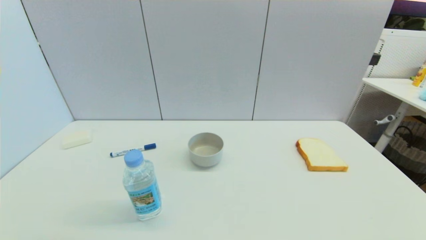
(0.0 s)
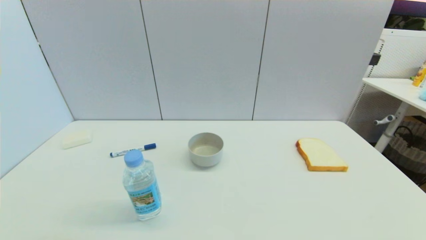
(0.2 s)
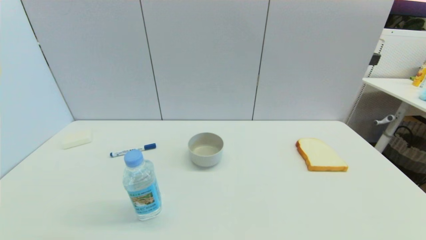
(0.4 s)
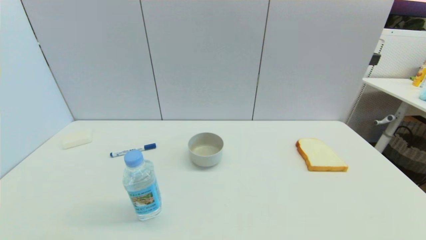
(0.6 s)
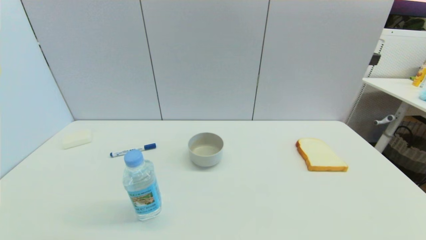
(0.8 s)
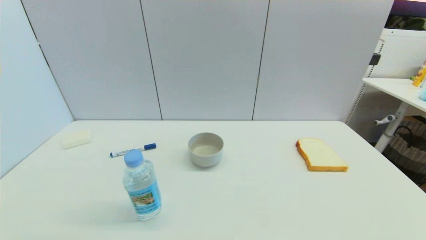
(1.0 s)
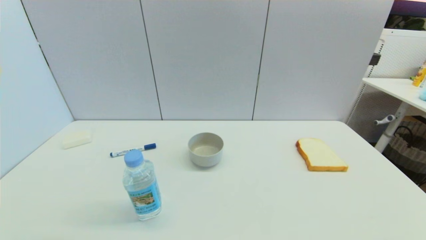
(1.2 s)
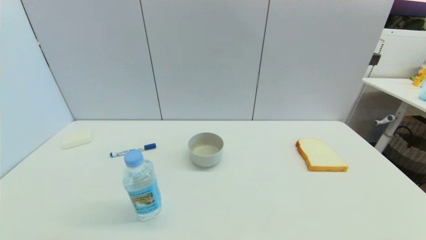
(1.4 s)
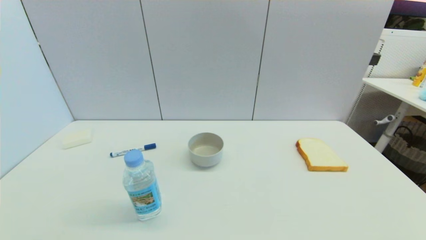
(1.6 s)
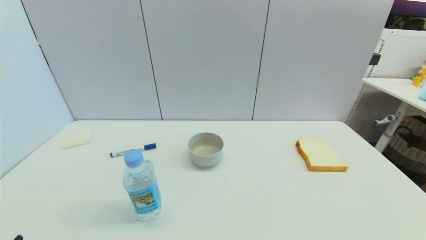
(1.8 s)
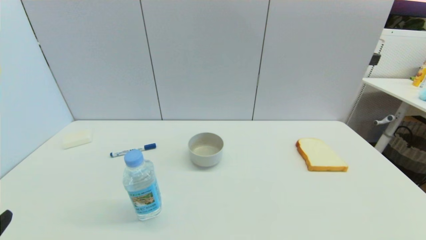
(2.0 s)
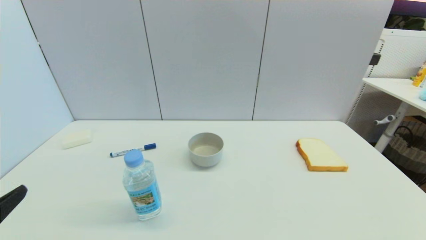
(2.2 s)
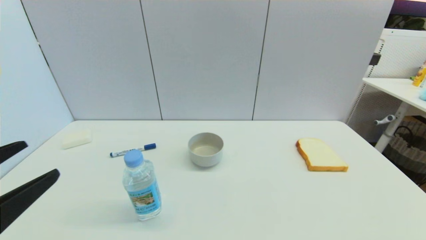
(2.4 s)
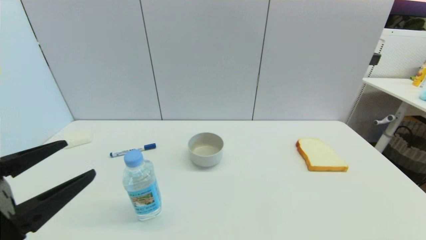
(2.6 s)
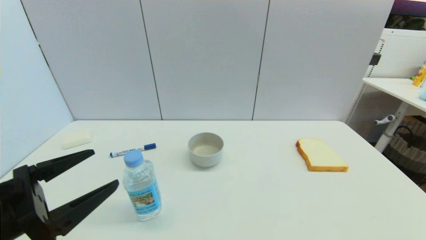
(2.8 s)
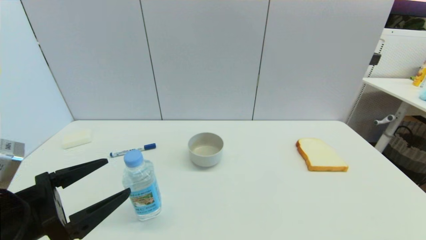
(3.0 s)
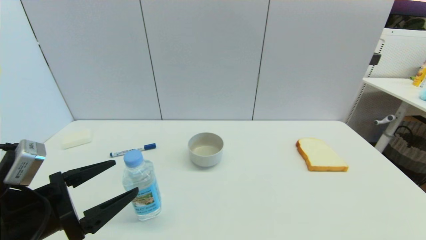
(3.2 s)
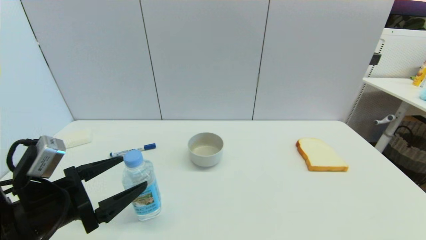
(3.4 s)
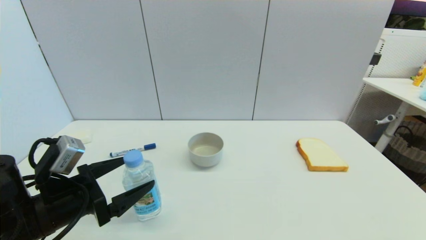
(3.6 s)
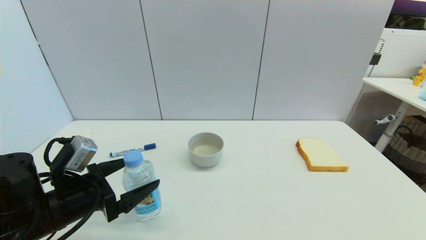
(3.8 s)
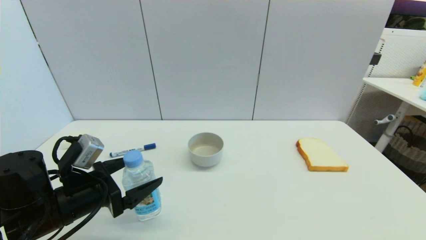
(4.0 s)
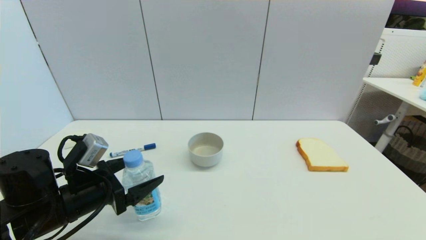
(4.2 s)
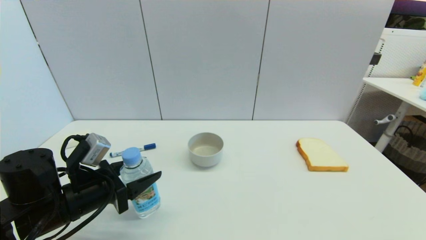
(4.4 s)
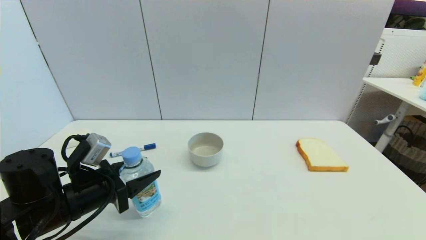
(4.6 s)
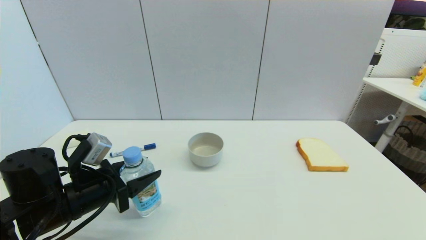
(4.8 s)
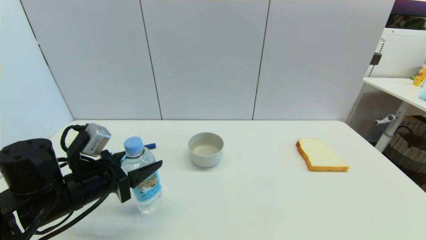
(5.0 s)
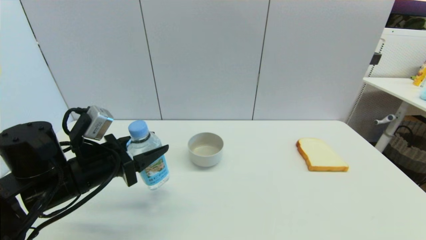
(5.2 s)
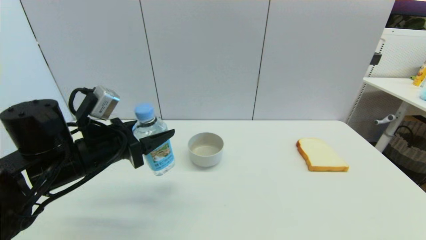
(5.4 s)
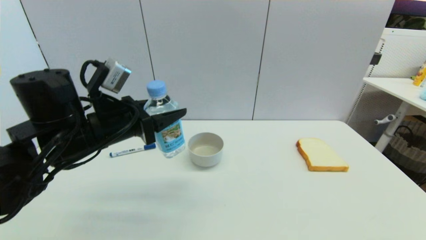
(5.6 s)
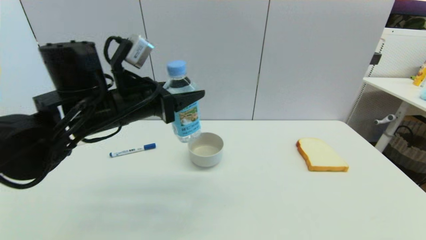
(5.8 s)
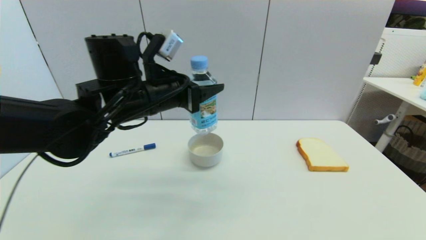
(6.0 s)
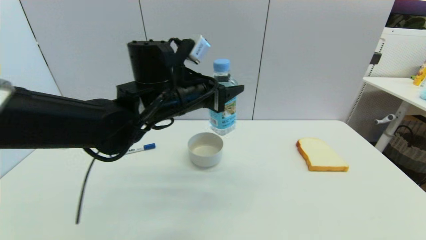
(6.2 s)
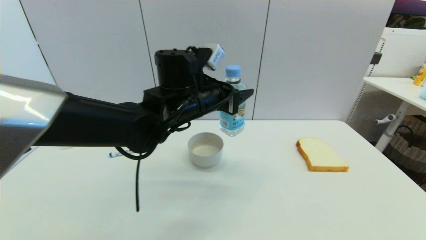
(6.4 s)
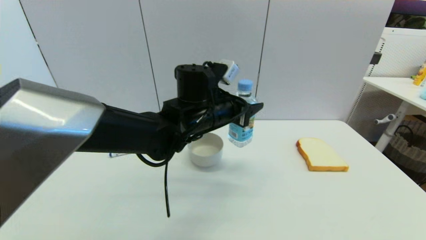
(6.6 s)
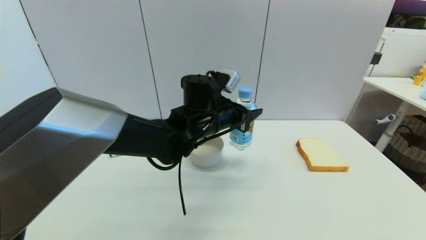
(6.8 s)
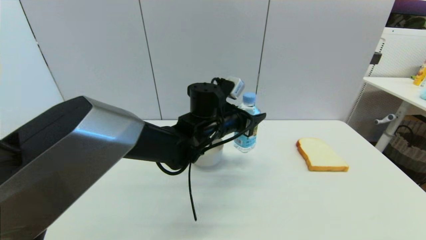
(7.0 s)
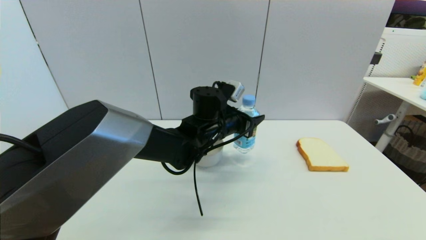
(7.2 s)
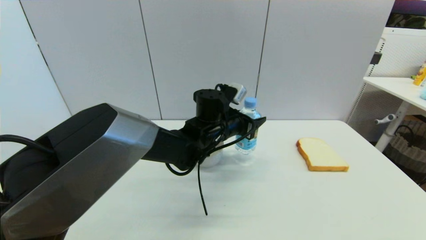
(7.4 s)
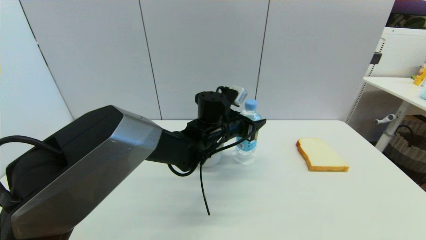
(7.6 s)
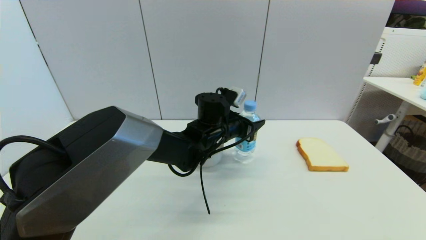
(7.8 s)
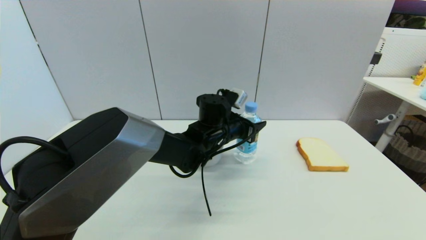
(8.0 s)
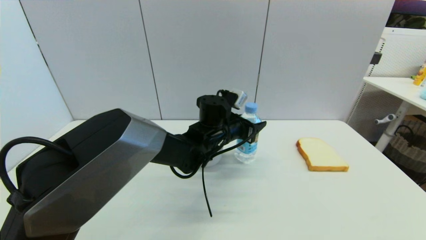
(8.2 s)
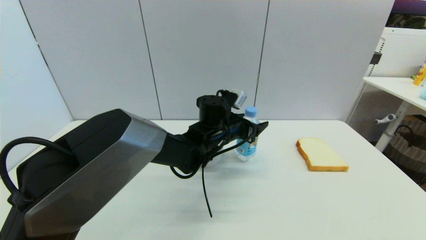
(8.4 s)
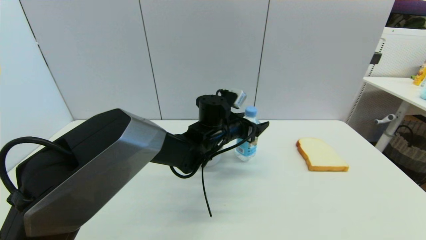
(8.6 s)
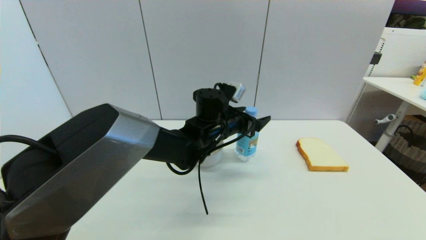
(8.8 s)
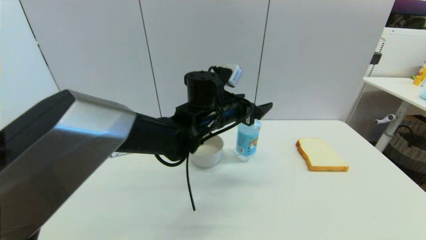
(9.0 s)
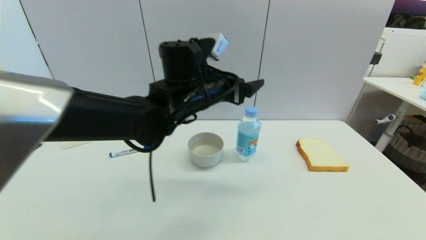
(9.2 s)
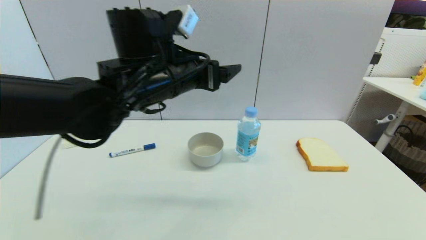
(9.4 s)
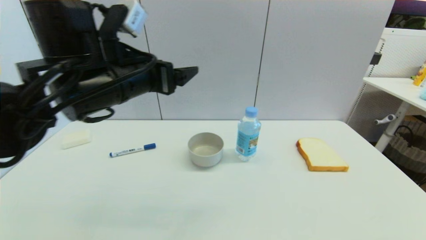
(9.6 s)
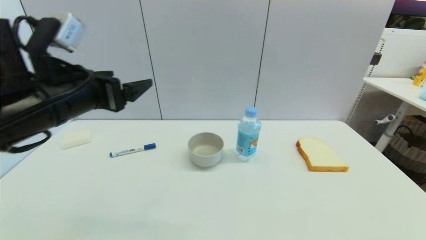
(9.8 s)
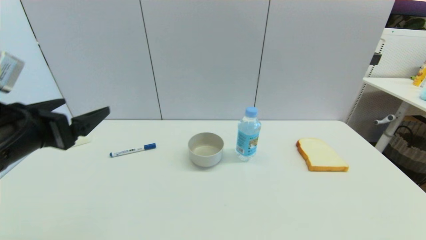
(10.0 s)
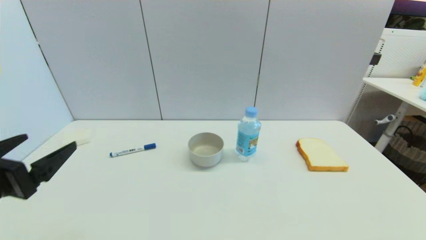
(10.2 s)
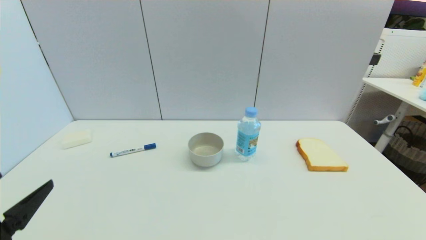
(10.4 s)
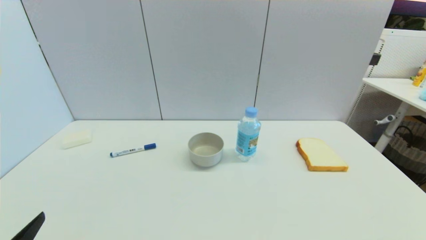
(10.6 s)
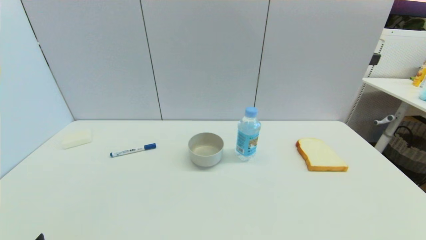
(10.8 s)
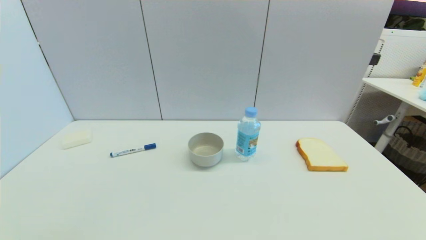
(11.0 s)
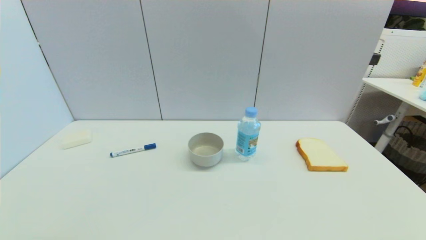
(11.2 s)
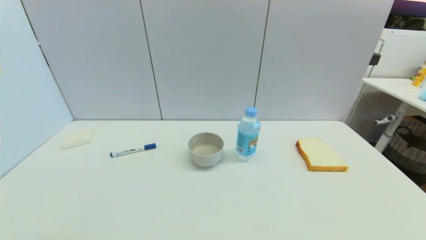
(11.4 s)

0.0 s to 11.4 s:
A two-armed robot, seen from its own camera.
Step, 2.0 to 4.8 s: Grasp the soda water with left gripper.
Step, 5.0 to 8.6 s: Place the soda water on the table with left gripper.
0.0 to 1.4 s: The two grippers keep their place.
1.4 to 2.8 s: The left gripper shifts about 15 cm forward and upward.
2.8 to 4.2 s: The left gripper goes some 10 cm forward and downward.
4.2 to 5.6 s: The left gripper moves upward, forward and to the right, about 15 cm, and closes its fingers.
5.6 to 7.2 s: The left gripper travels to the right and forward by approximately 20 cm.
7.2 to 8.6 s: The left gripper opens its fingers.
8.6 to 10.0 s: The left gripper heads to the left and backward, covering roughly 35 cm, and opens.
10.0 to 11.4 s: The left gripper travels backward and downward by approximately 25 cm.

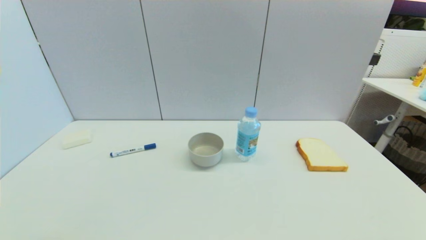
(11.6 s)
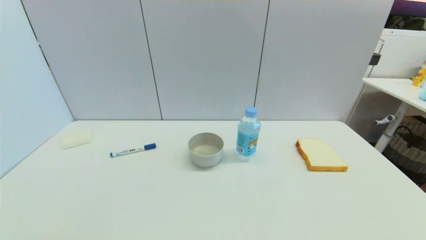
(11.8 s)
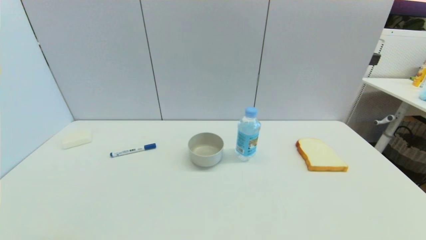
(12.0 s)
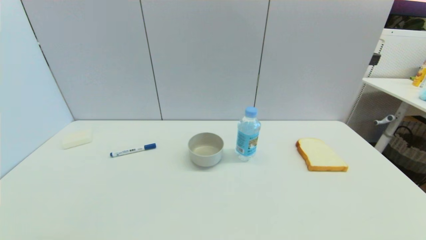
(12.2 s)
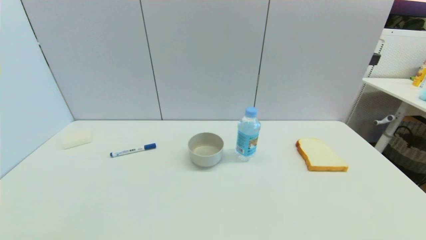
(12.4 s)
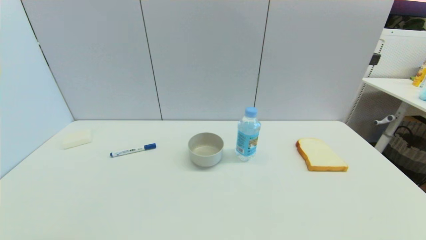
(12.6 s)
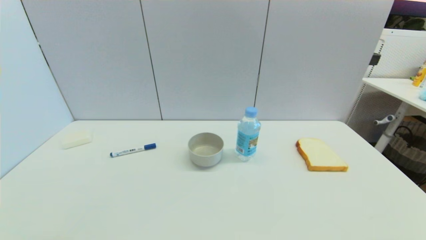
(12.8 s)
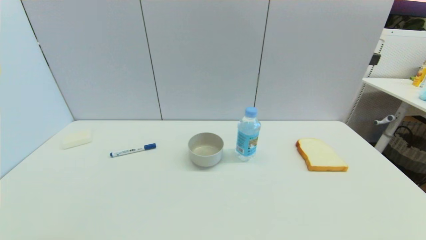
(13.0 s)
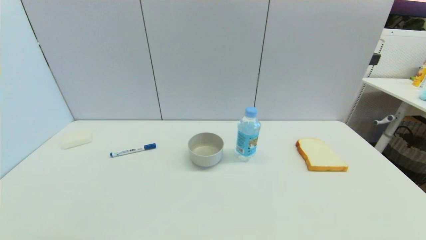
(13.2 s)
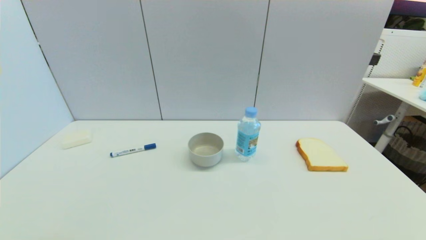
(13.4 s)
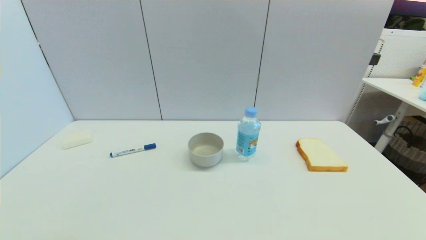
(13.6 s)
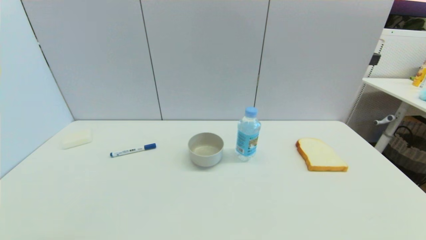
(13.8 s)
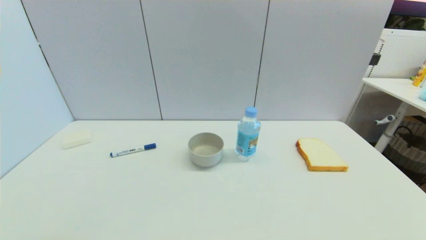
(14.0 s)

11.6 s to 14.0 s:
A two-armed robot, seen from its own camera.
11.6 to 14.0 s: Neither gripper changes place.

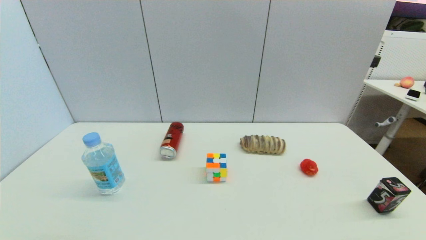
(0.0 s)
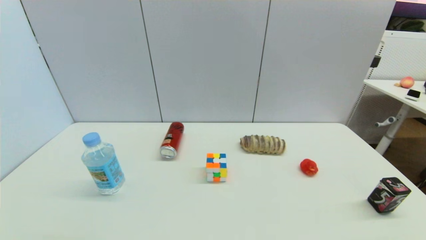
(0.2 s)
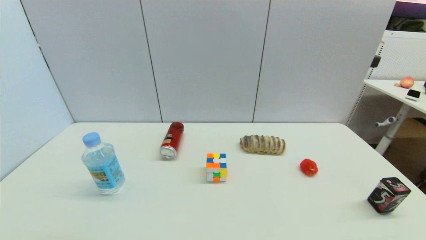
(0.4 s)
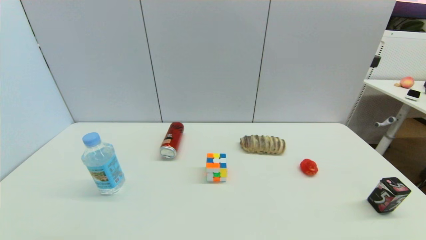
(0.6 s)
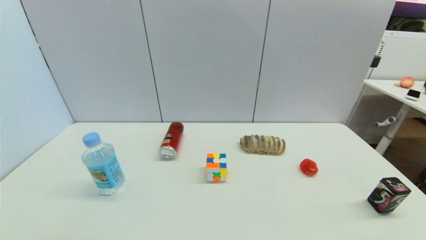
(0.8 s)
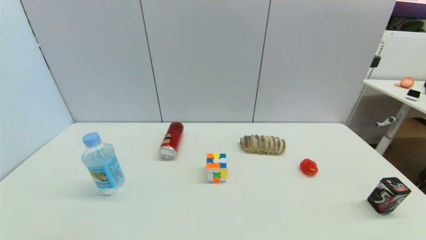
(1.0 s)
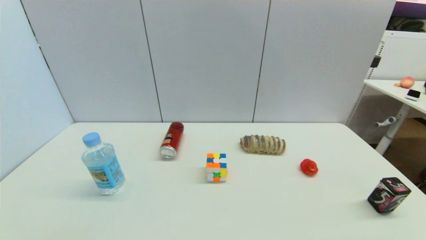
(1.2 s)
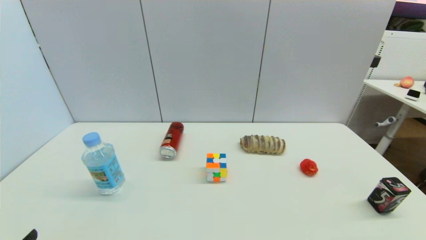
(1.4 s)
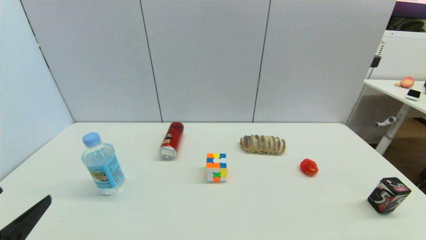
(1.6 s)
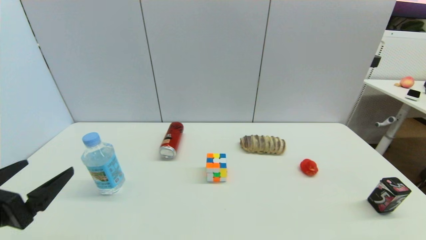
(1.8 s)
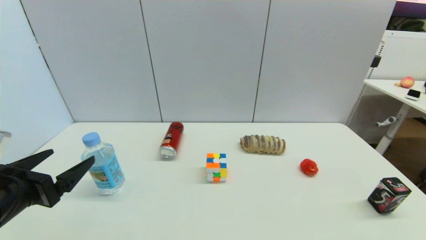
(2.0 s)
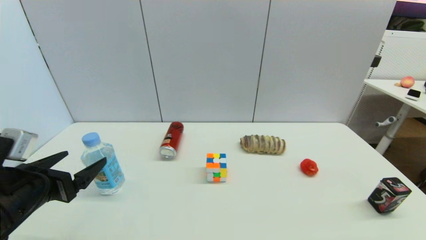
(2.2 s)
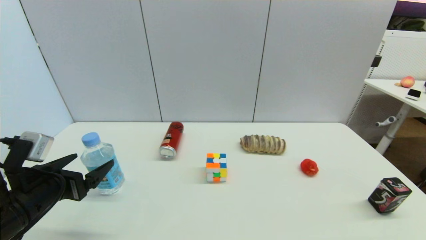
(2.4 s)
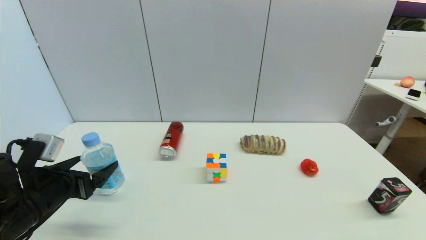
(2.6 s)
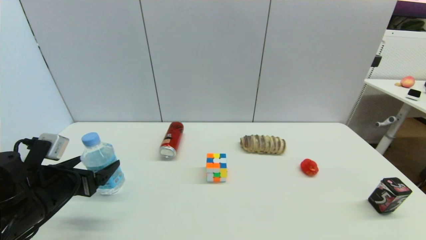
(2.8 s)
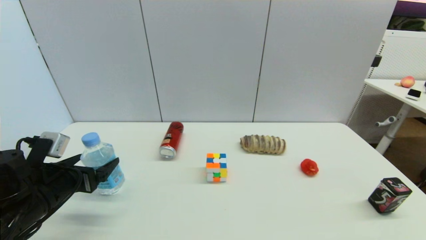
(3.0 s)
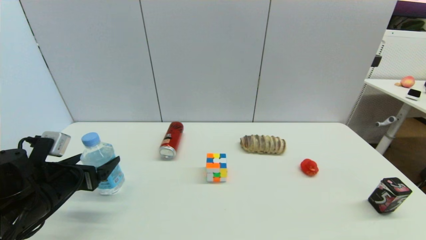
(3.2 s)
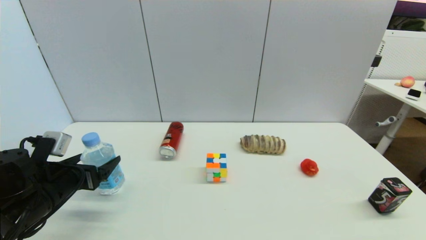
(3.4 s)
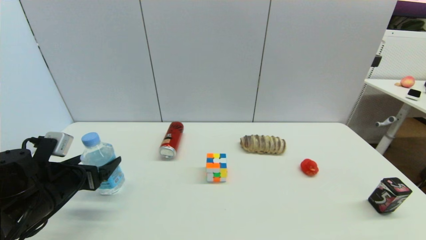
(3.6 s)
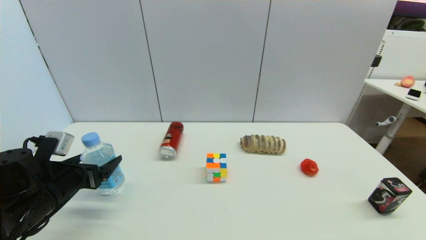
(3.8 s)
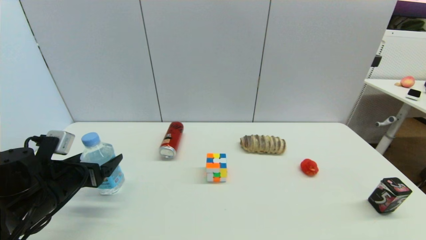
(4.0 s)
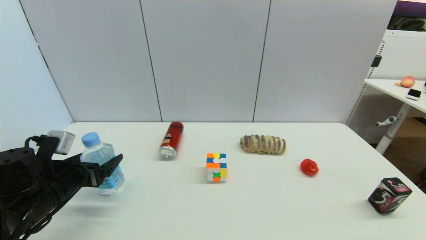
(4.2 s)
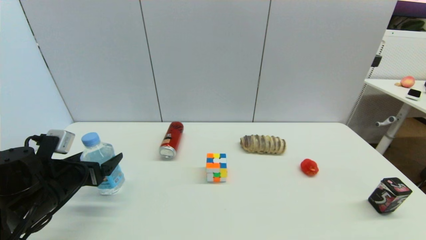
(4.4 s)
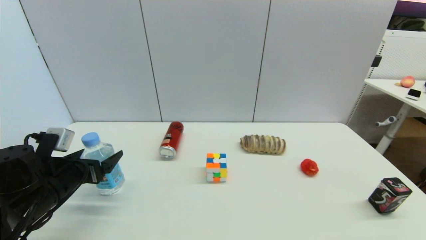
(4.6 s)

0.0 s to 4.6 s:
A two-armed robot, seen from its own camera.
0.0 to 1.6 s: The left gripper heads upward and forward, covering roughly 10 cm.
1.6 to 3.0 s: The left gripper moves forward and downward, approximately 15 cm.
3.0 to 4.6 s: There are only small adjustments of the grippers.
